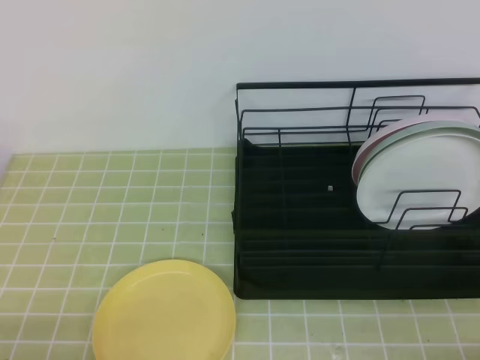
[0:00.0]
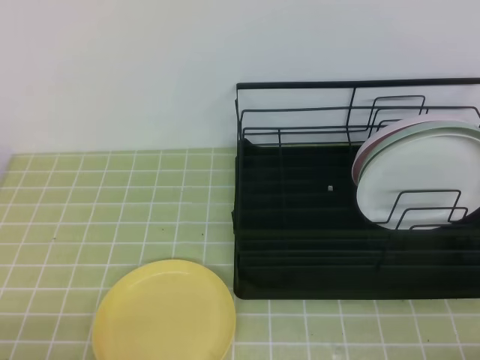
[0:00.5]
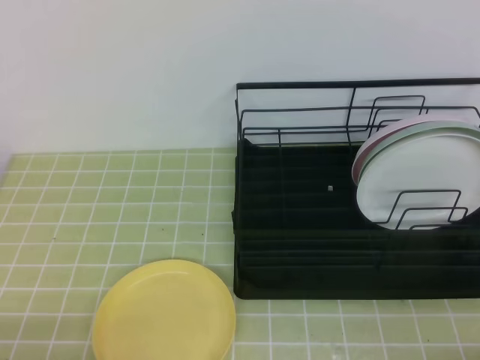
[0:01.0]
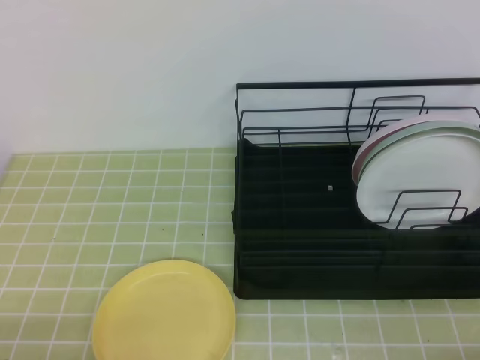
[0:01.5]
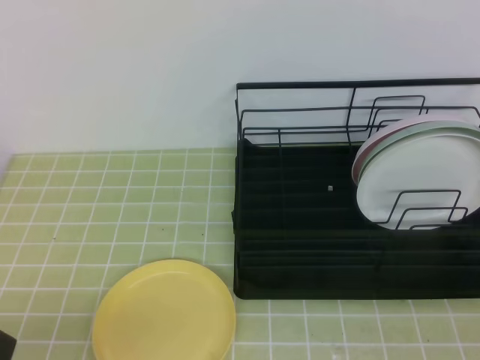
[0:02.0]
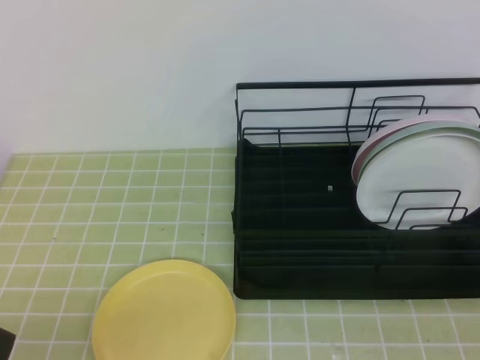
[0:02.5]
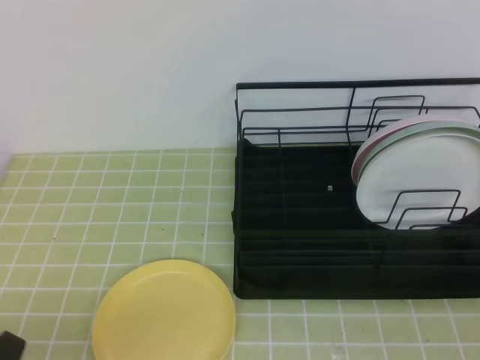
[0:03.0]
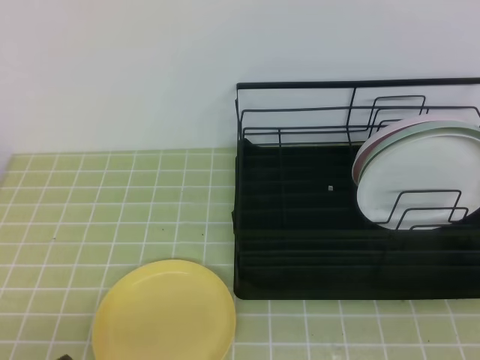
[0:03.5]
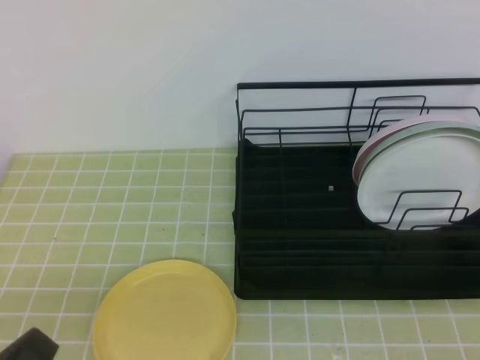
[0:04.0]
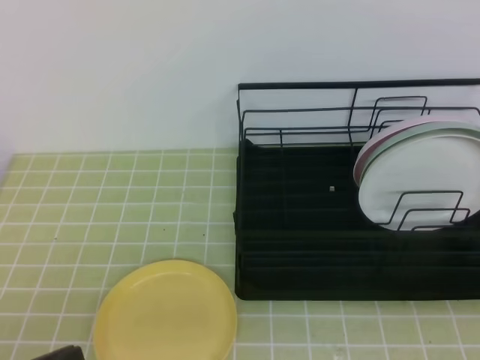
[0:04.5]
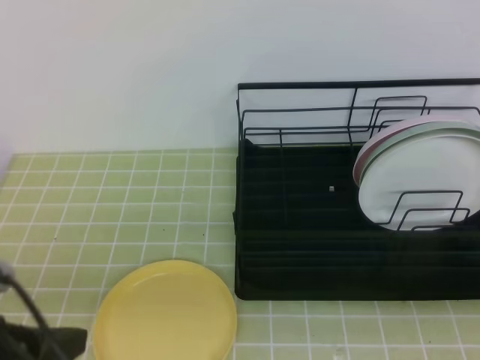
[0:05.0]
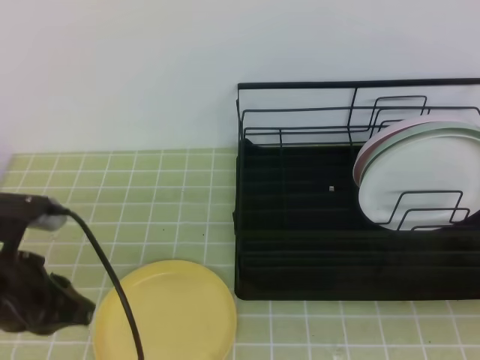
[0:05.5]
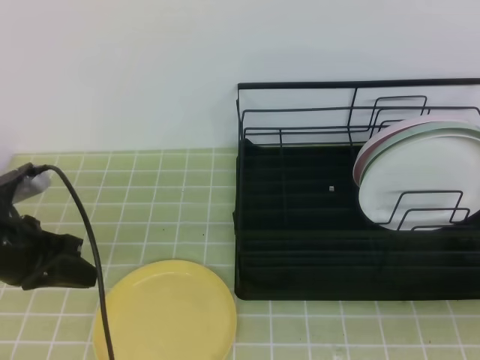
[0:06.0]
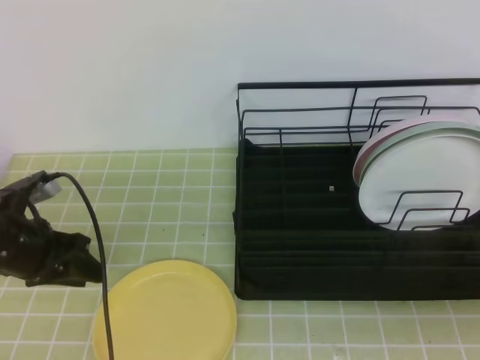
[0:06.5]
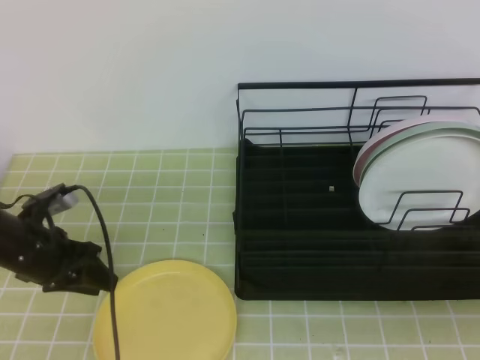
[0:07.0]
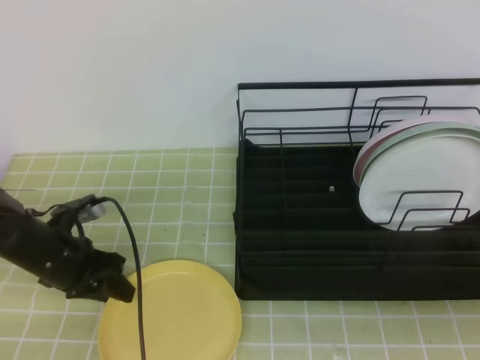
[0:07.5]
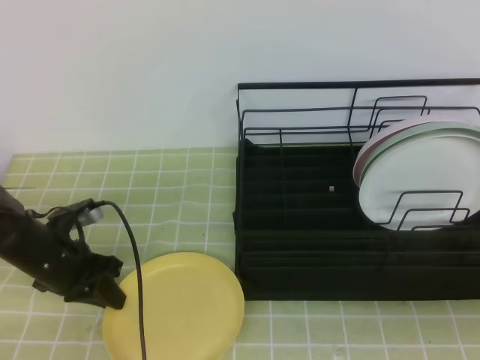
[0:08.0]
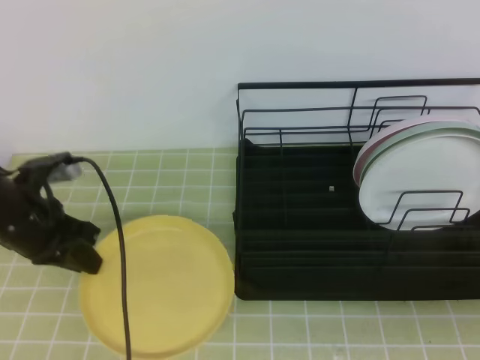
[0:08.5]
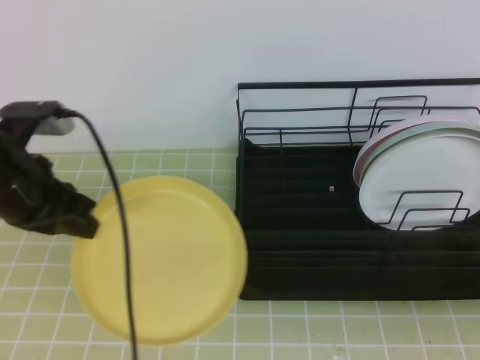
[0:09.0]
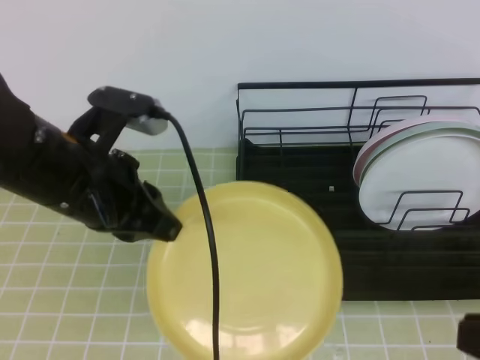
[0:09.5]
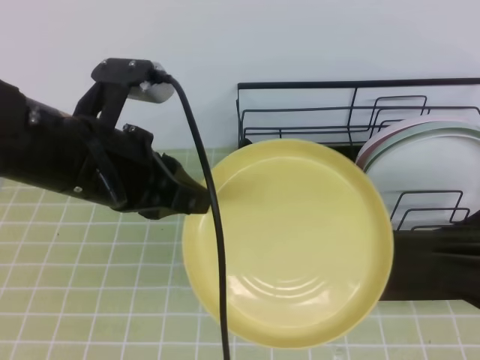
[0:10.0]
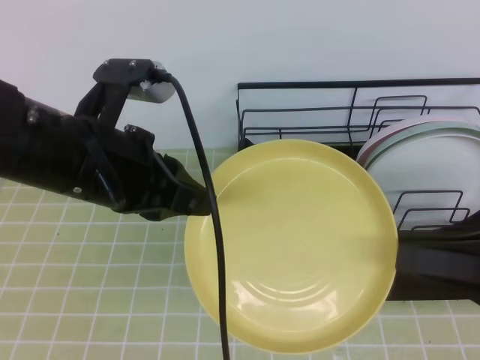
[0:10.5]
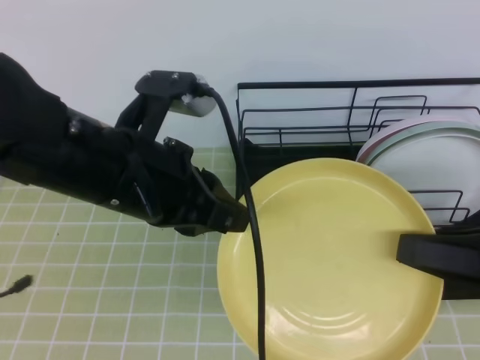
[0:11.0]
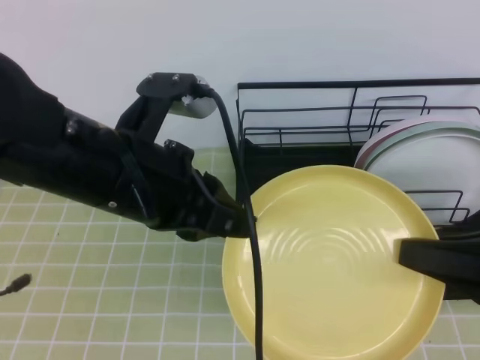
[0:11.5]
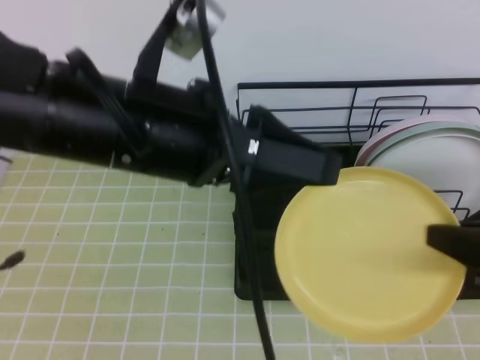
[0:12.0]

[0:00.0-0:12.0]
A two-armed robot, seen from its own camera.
Step, 0:00.0 to 0:06.5: Left grab the yellow plate.
0:02.0 to 0:04.0: The left gripper is displaced upward by roughly 5 cm.
0:04.0 to 0:06.0: The left gripper shifts approximately 25 cm forward.
0:06.0 to 0:08.0: The left gripper shifts roughly 10 cm downward and forward, and opens, then closes once more.
0:08.0 to 0:10.0: The left gripper heads upward and to the right, covering some 25 cm. The right gripper moves forward, roughly 10 cm, and opens its fingers.
0:10.0 to 0:12.0: The right gripper shifts roughly 5 cm forward, and closes its fingers. The left gripper shifts by some 5 cm, and opens up.

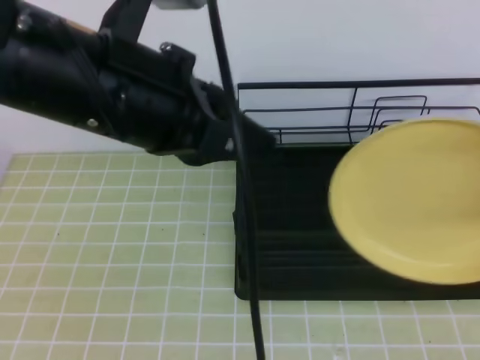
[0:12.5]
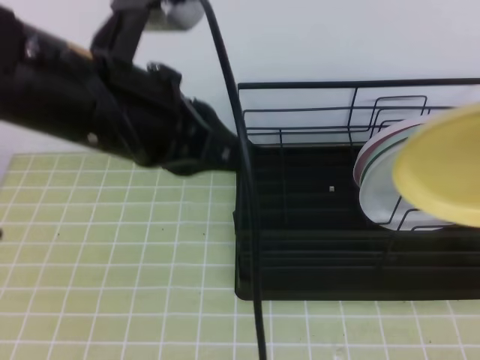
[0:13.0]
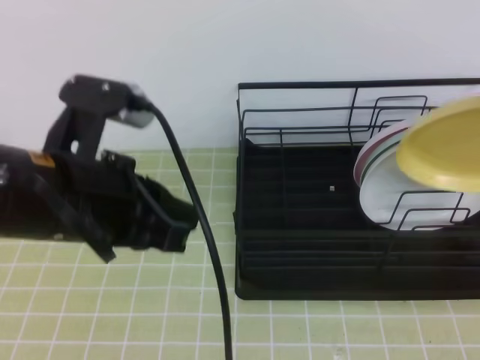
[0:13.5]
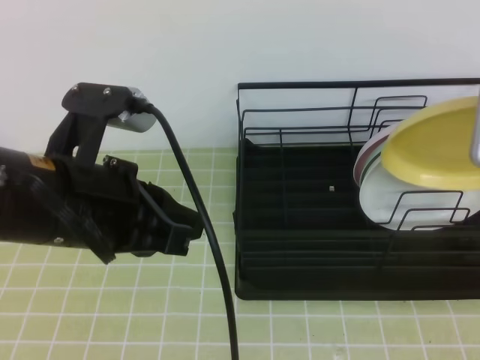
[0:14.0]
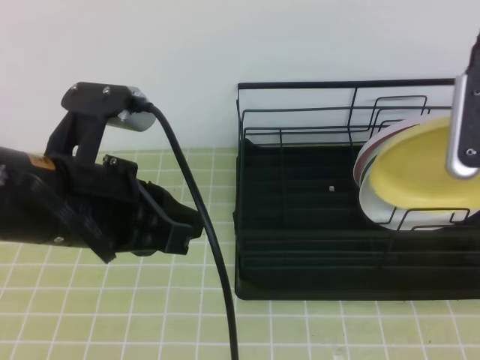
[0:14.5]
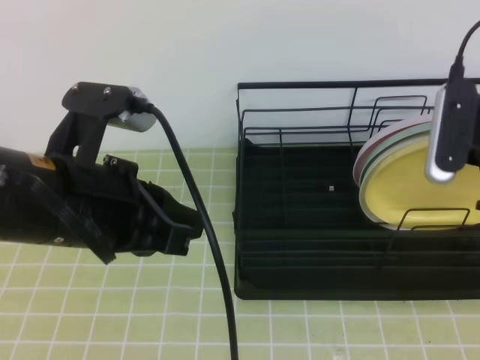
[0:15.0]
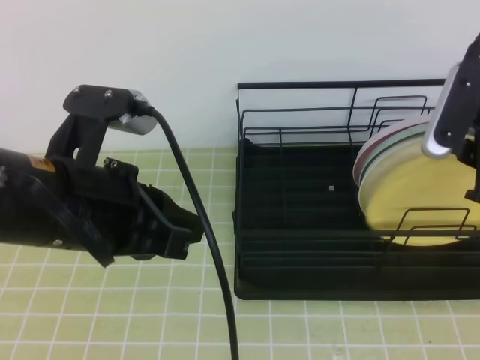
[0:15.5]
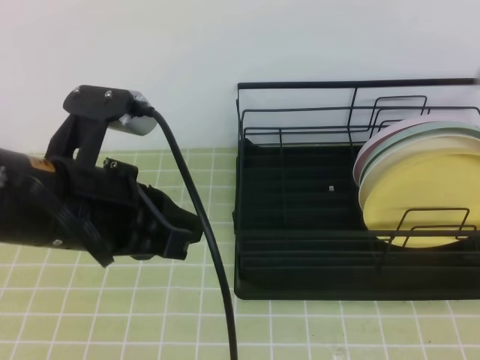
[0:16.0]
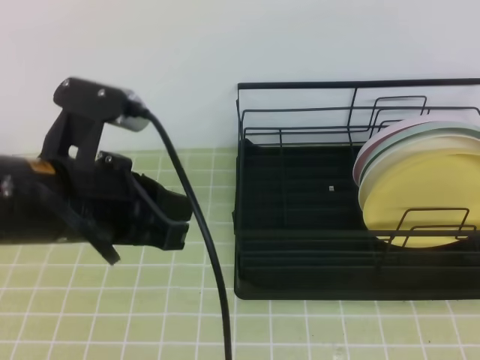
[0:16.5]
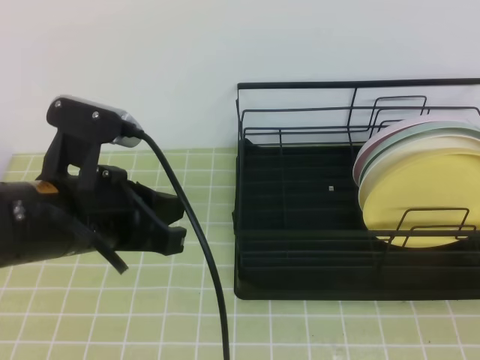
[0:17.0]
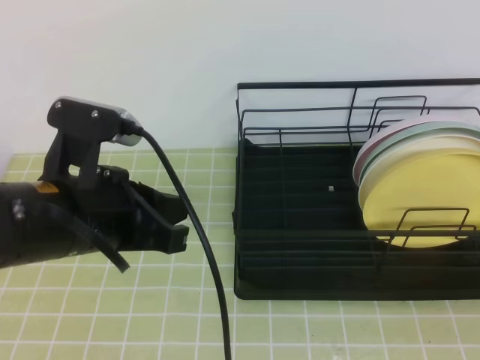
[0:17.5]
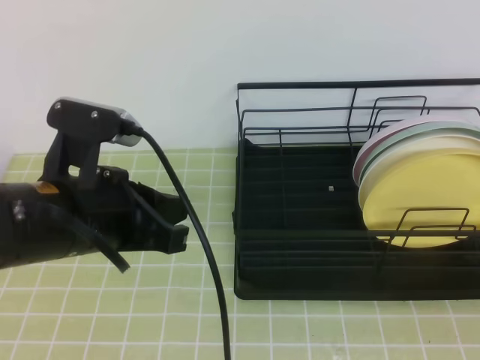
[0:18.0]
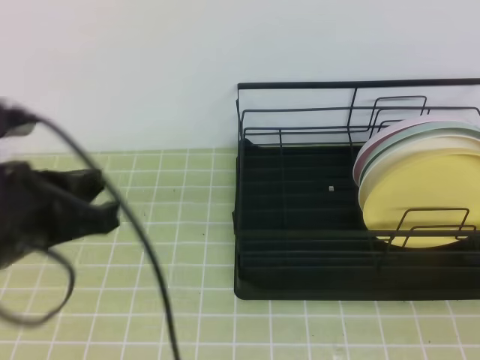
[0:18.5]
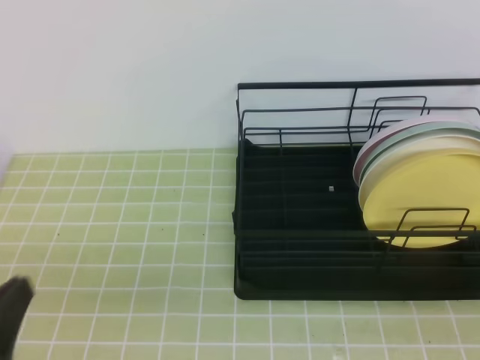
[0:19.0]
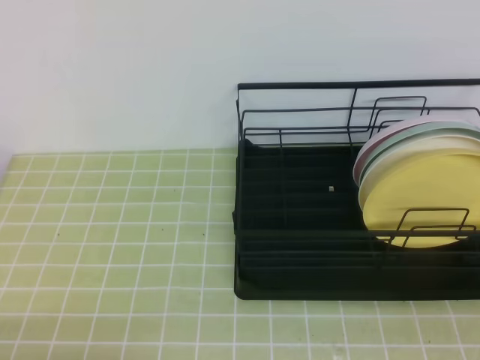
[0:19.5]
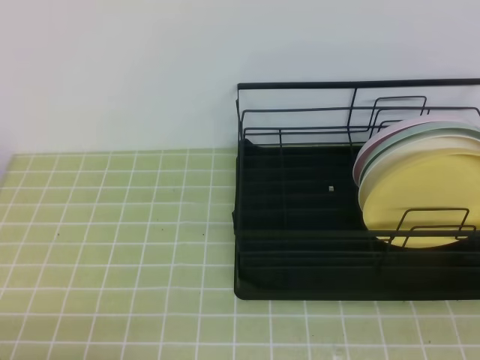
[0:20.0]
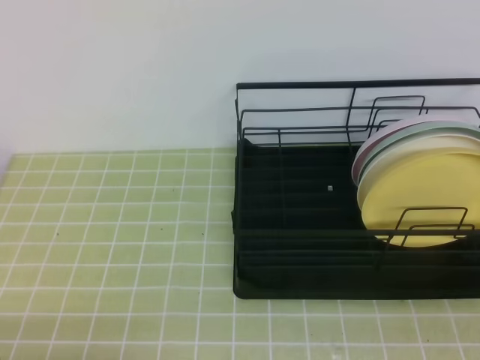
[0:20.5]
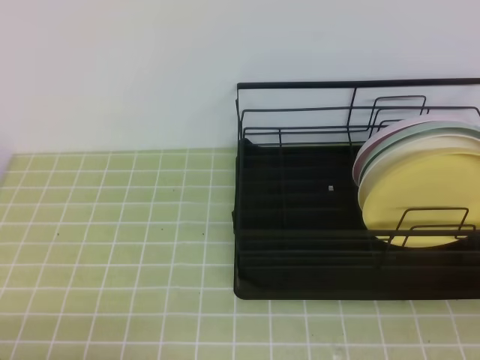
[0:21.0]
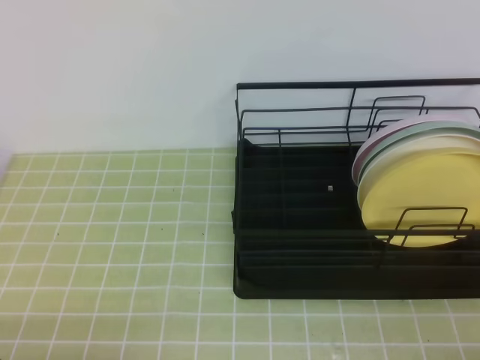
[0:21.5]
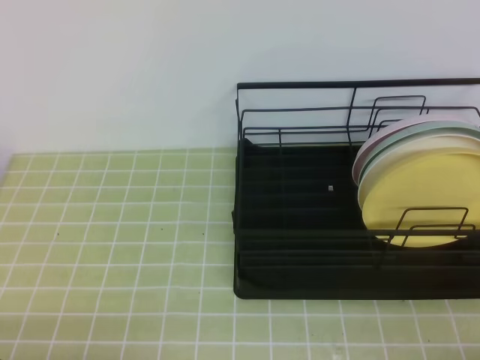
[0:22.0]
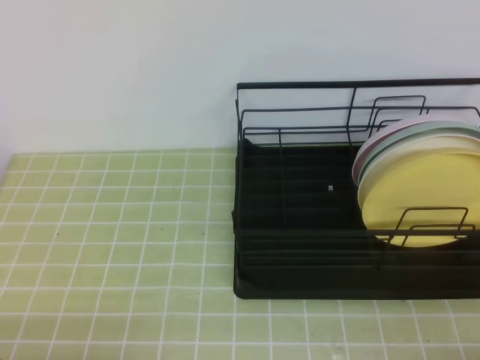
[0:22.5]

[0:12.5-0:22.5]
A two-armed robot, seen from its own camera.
0:12.5 to 0:14.5: The left gripper is displaced downward by some 5 cm, while the right gripper travels forward by roughly 10 cm.
0:14.5 to 0:16.5: The right gripper moves backward, roughly 15 cm, and opens, then closes once more.
0:16.5 to 0:18.5: The right gripper travels downward and backward by roughly 15 cm. The left gripper moves roughly 5 cm.
0:18.5 to 0:20.5: The left gripper heads downward, backward and to the left, covering approximately 20 cm.
